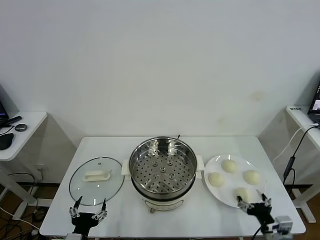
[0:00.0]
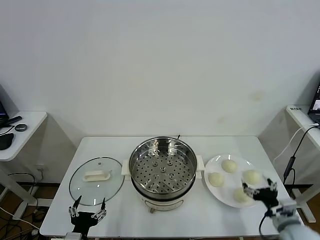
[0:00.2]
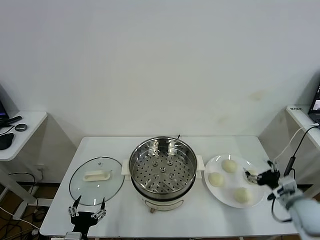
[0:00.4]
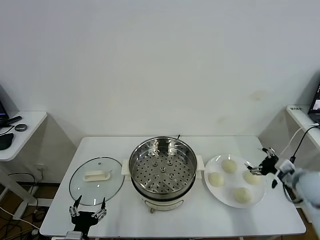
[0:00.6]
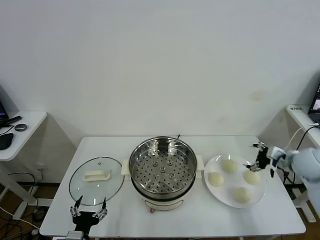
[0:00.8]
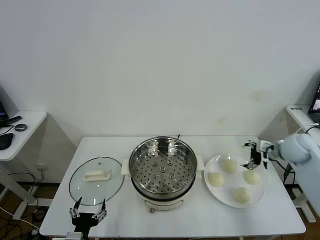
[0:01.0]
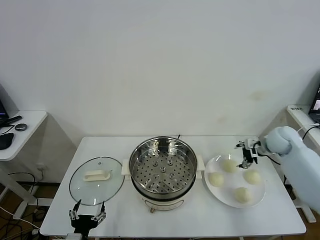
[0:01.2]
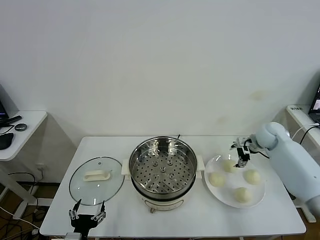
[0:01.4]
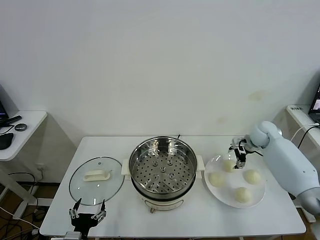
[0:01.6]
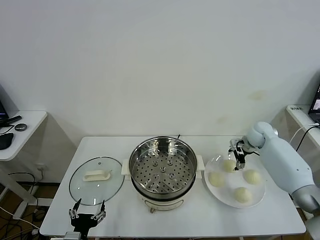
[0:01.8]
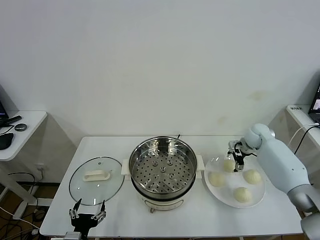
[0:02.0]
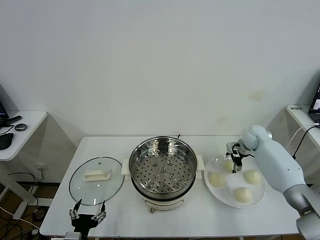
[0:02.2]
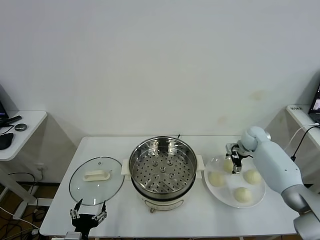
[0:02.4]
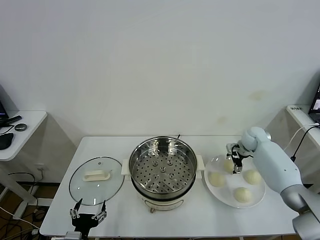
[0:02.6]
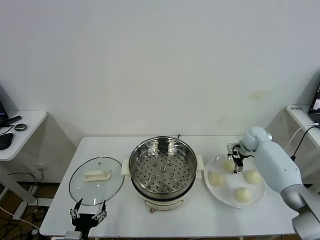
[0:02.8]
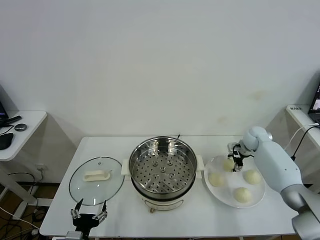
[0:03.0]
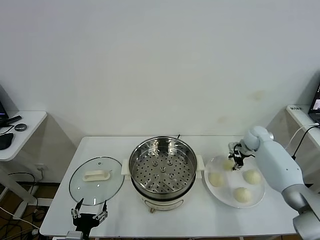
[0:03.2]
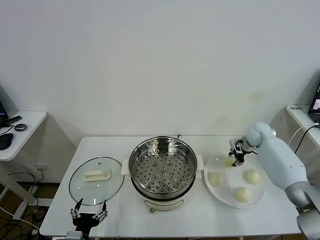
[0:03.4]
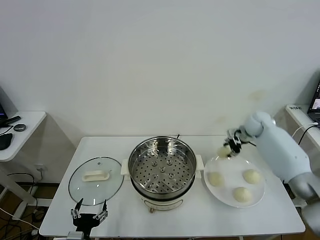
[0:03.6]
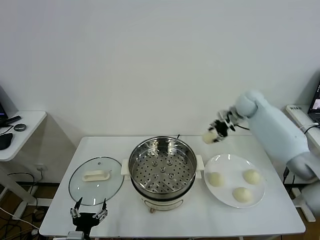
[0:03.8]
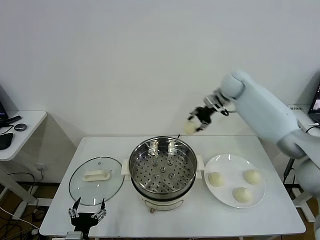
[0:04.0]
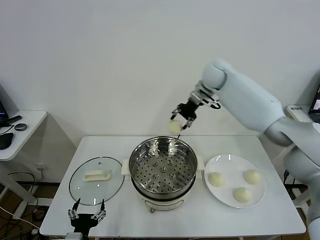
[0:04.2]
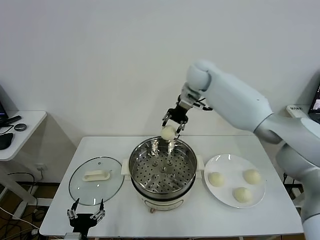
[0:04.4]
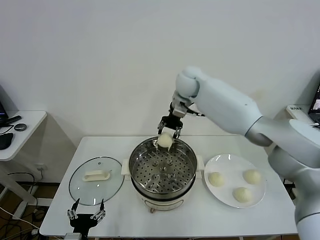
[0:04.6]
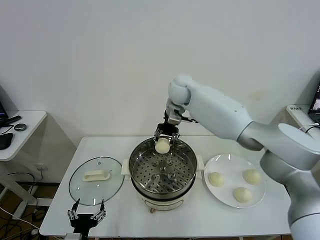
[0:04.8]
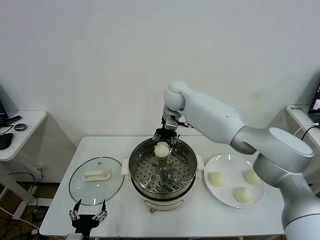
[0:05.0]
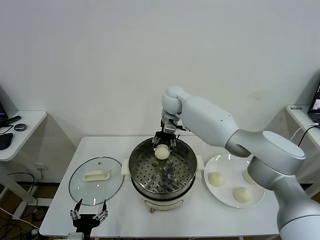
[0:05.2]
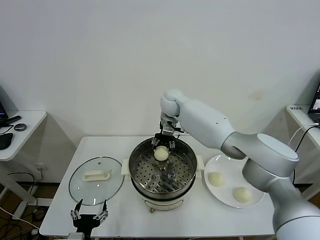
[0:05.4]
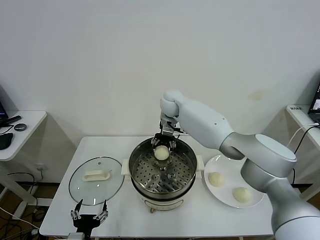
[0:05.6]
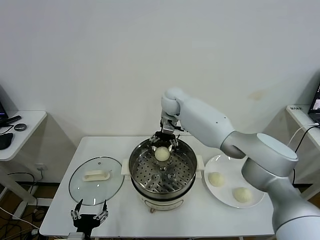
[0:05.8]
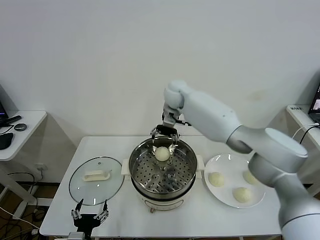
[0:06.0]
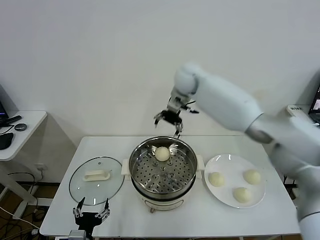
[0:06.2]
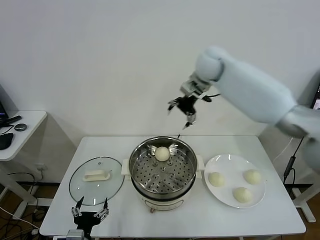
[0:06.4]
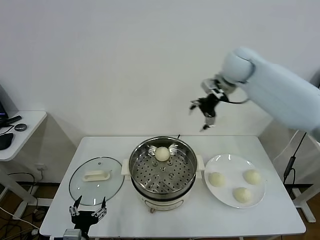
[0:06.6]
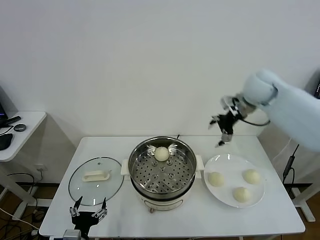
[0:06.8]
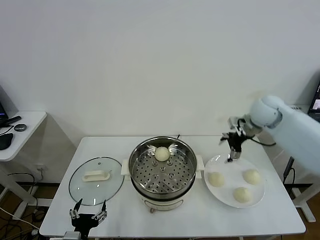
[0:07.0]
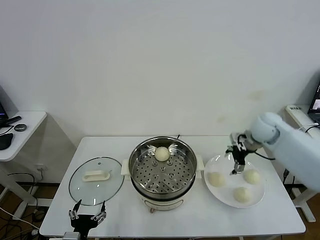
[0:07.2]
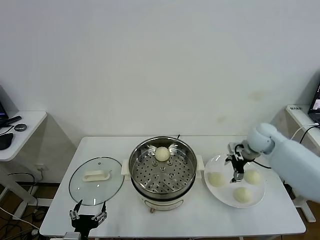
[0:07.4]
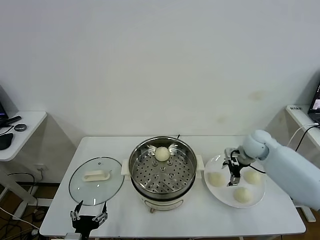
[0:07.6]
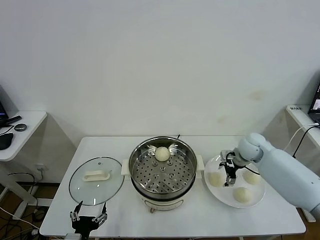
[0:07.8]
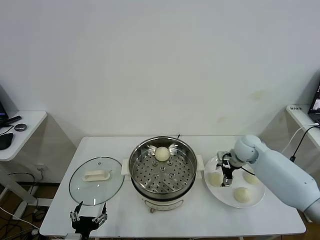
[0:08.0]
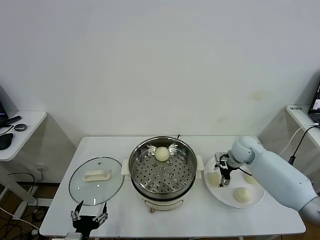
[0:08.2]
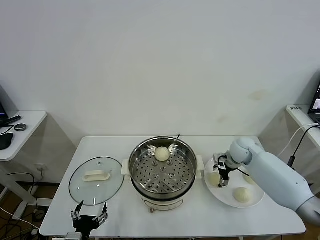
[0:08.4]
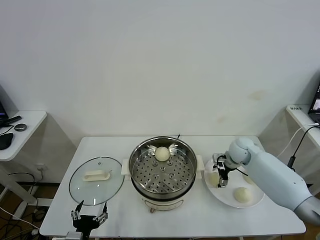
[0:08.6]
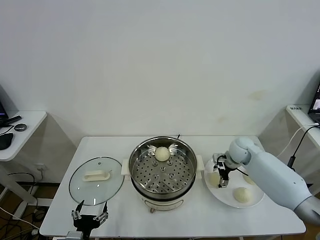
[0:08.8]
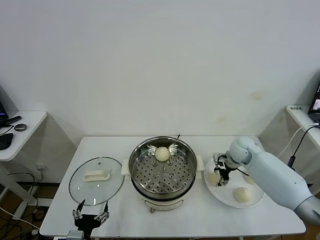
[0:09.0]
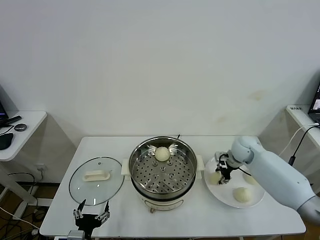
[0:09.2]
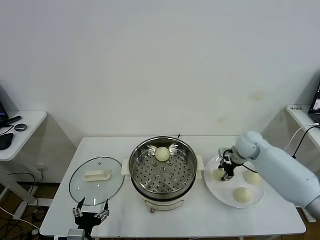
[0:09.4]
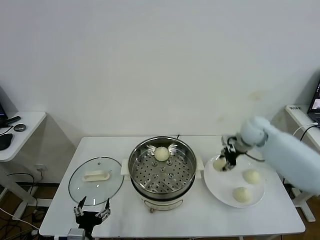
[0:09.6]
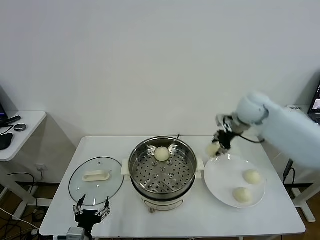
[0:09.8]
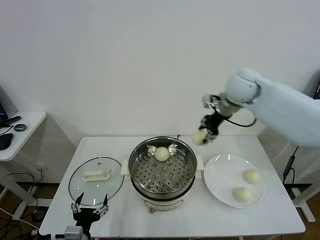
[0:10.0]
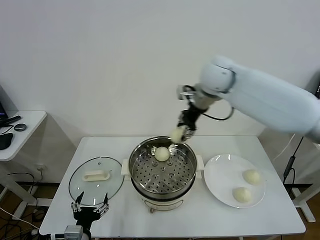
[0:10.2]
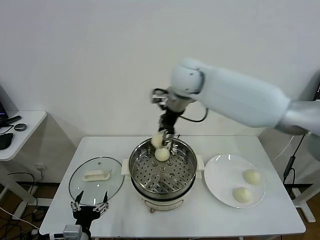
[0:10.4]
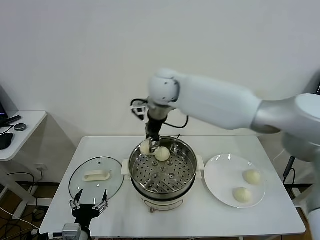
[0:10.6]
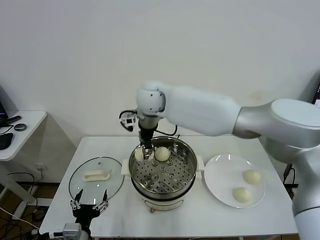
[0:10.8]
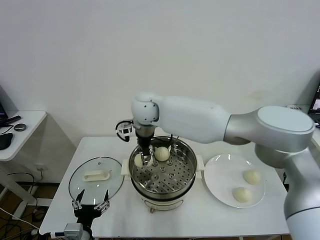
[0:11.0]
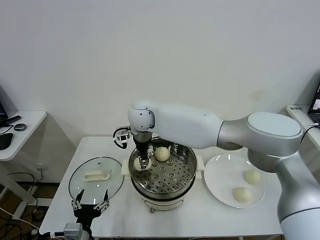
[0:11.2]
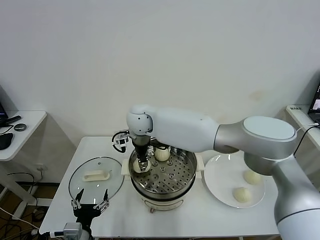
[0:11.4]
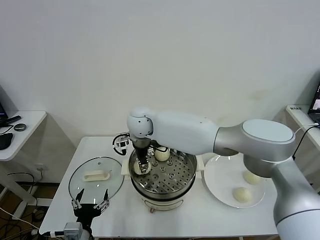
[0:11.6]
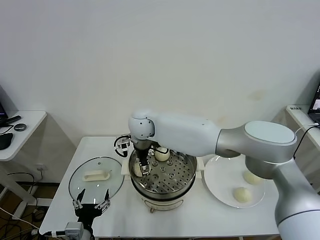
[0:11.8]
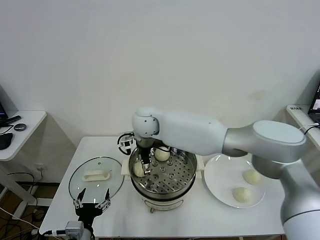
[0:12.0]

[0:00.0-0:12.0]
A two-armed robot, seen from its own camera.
Task of the whole recording: take steamed baozi put them in steamer.
Step, 0:00.0 to 0:03.0: Grasp the baozi in the plate with right gripper.
Step, 0:03.2 to 0:05.8: Place the baozi on the steamer with right gripper.
Step, 0:06.0 to 0:09.0: Grasp the baozi in the plate with right gripper.
Step, 0:09.2 to 0:11.8: Place the baozi on the steamer with right gripper.
0:01.6 to 0:03.0: The right gripper changes place by approximately 5 cm, and closes its fingers.
0:03.0 to 0:04.4: The right gripper heads to the left and upward, covering roughly 35 cm, and closes up.
0:04.4 to 0:06.0: The right gripper is displaced to the left and downward by about 10 cm, and opens.
0:06.0 to 0:07.6: The right gripper heads to the right, downward and backward, covering approximately 35 cm.
0:07.6 to 0:09.0: The right gripper is displaced downward by about 5 cm, and closes up.
0:09.0 to 0:10.4: The right gripper is displaced upward and to the left by approximately 35 cm, and closes.
0:10.4 to 0:12.0: The right gripper travels downward and to the left by about 20 cm, and opens.

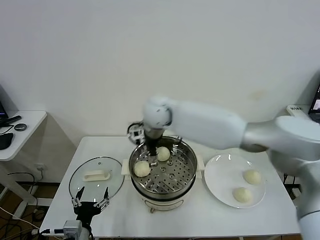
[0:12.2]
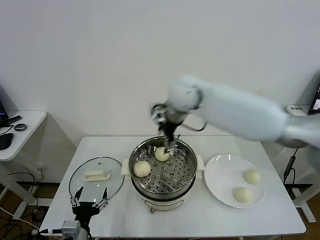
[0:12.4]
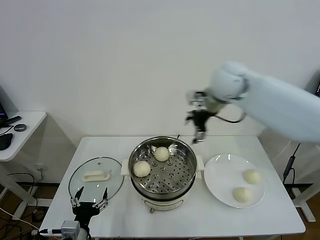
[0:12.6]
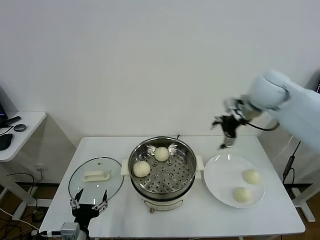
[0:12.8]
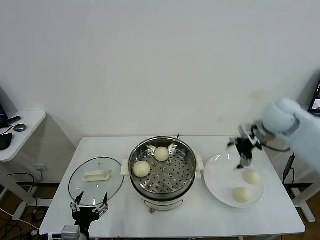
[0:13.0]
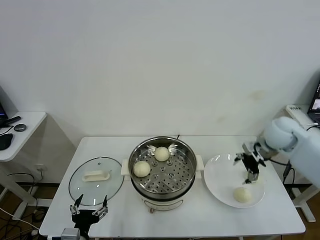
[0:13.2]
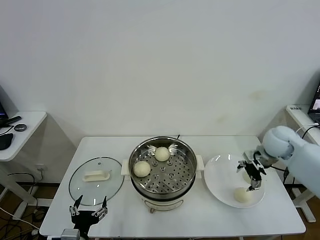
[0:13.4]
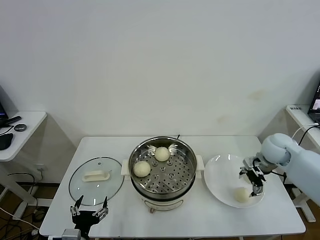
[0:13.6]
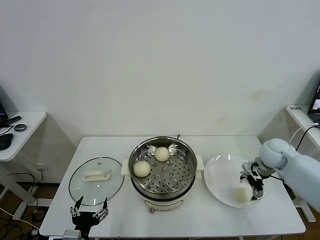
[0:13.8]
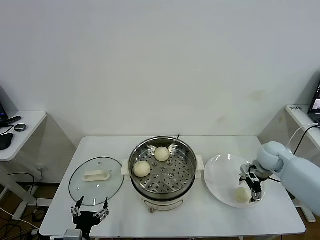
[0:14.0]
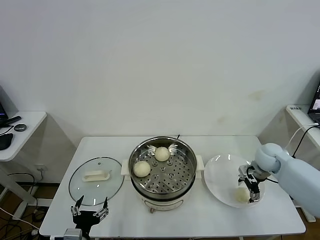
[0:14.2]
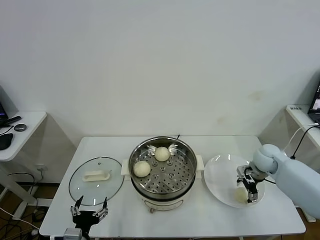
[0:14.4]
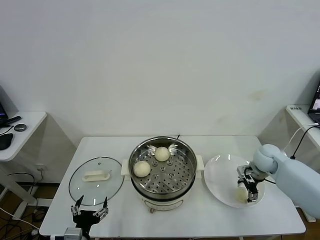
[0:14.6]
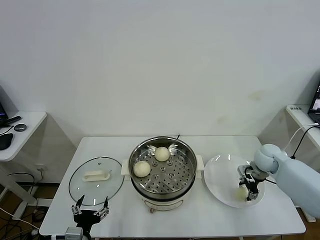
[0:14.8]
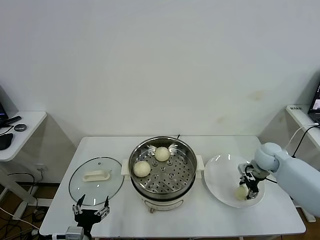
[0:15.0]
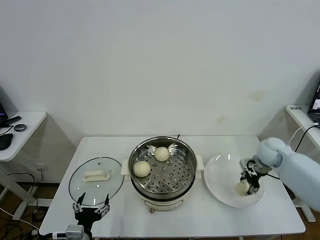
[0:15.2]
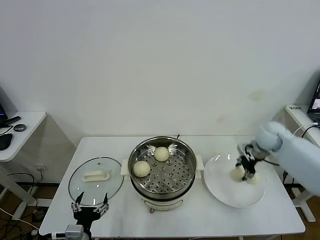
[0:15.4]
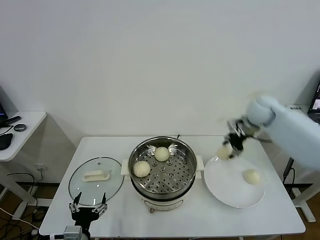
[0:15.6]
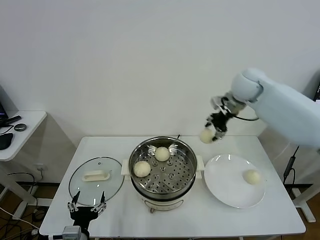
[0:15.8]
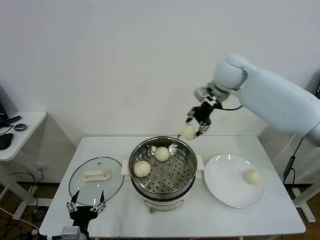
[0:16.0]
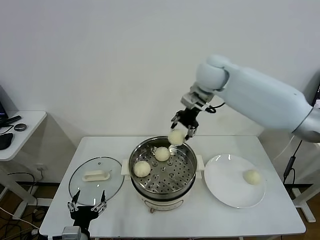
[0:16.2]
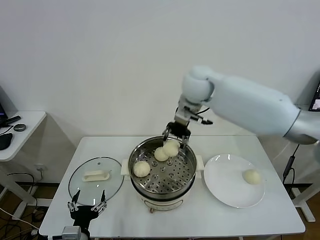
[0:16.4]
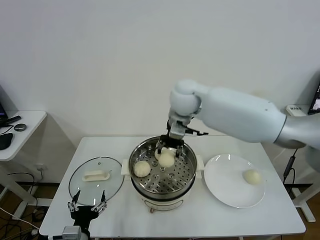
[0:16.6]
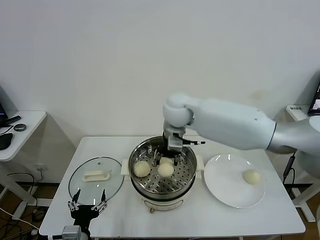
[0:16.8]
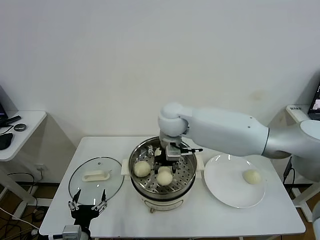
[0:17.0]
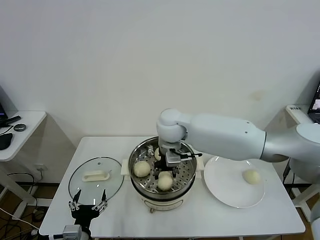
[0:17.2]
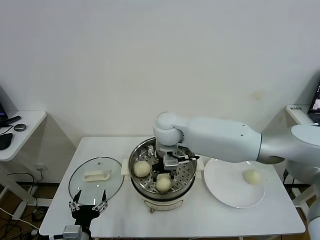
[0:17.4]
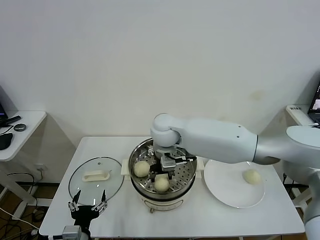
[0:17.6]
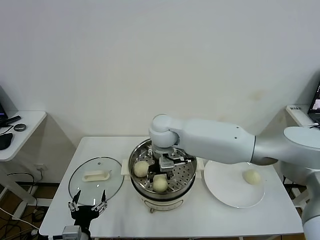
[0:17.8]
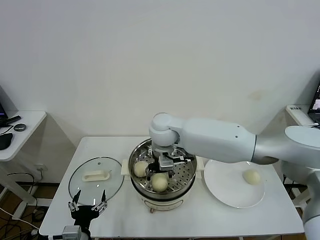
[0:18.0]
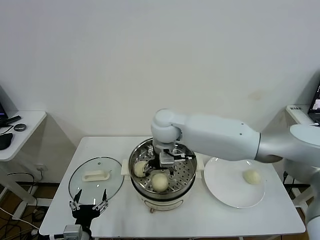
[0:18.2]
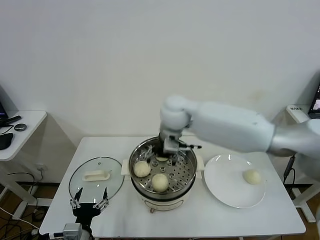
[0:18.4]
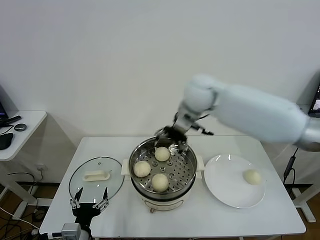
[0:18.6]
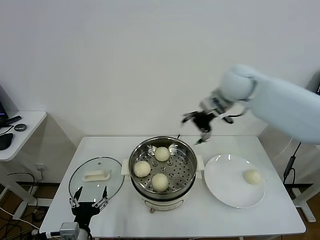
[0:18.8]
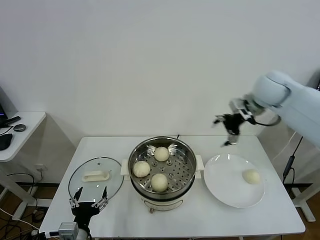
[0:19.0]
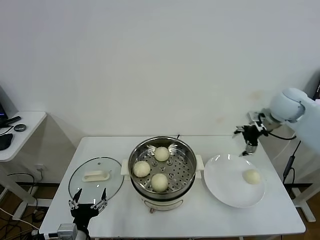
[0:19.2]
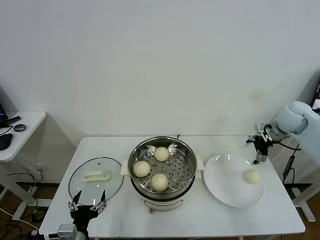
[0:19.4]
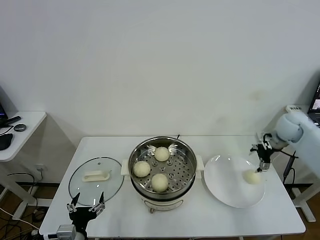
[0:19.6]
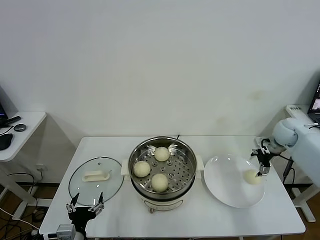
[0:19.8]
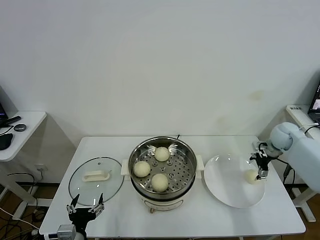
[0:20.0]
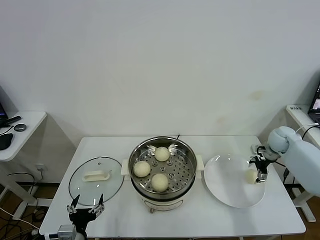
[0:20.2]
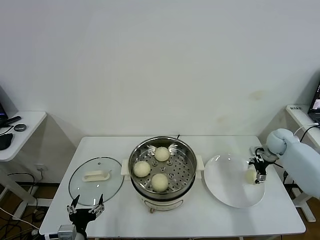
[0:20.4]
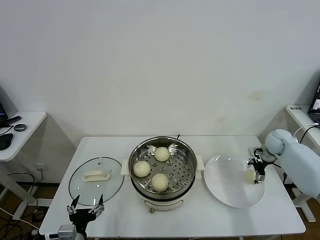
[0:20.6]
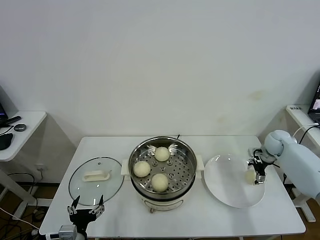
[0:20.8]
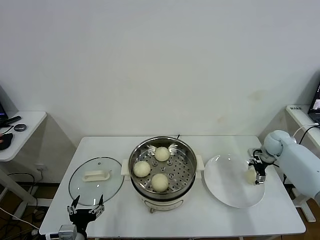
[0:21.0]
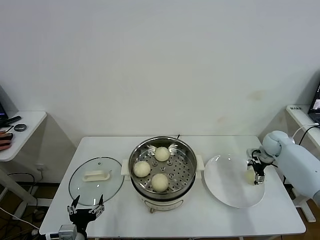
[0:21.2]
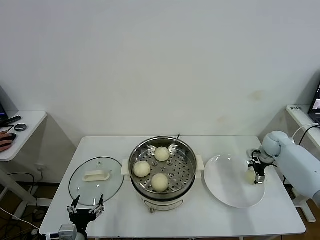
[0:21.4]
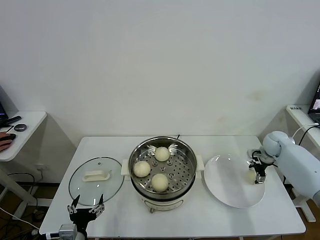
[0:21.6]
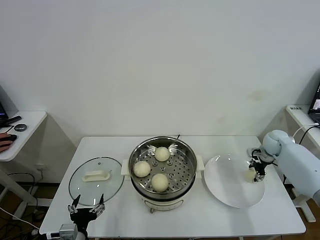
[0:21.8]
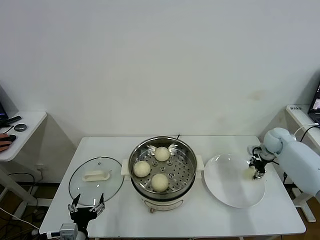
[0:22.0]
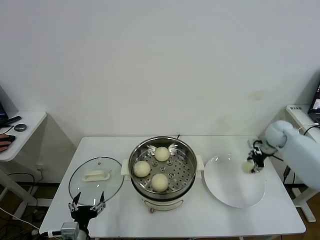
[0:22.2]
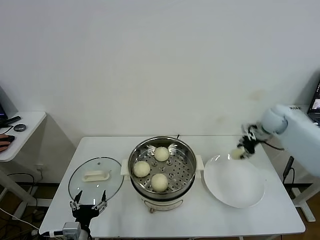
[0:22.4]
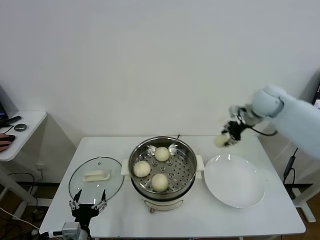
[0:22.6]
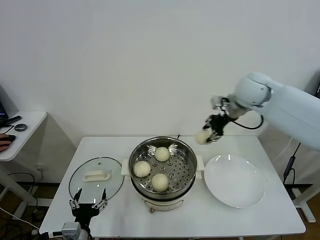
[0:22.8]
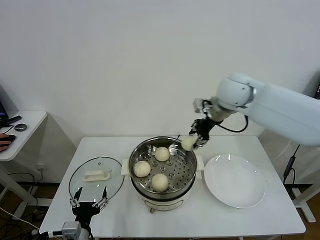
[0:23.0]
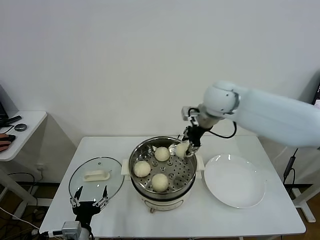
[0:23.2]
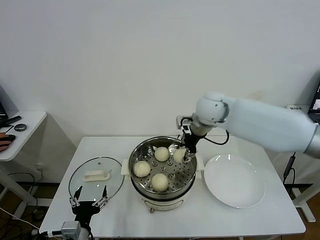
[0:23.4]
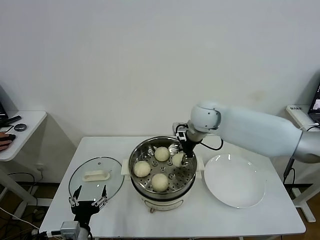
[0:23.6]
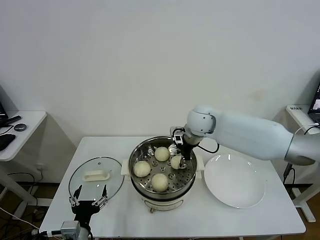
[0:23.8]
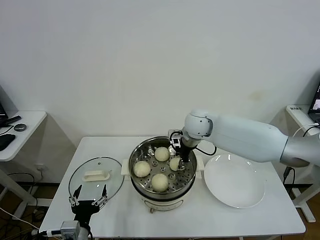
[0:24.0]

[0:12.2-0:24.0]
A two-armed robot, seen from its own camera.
Task of the whole recording: take steamed baozi put them in steamer.
Step, 0:12.2 to 0:14.8: Grasp the baozi in the plate with right gripper.
Step, 0:15.0 to 0:18.2: Place the baozi on the steamer with right gripper.
Step, 0:18.6 to 0:21.6: Grasp the baozi in the plate with right gripper.
0:12.2 to 0:13.6: The right gripper goes about 40 cm to the right.
0:13.6 to 0:15.2: The right gripper closes.
0:15.2 to 0:16.6: The right gripper goes approximately 40 cm to the left and upward.
0:16.6 to 0:18.2: The right gripper goes approximately 10 cm downward and to the left, and opens up.
0:18.2 to 0:19.6: The right gripper heads to the right, covering approximately 40 cm.
0:19.6 to 0:21.0: The right gripper goes some 10 cm downward.
0:21.0 to 0:22.6: The right gripper heads upward and to the left, covering roughly 20 cm, and closes.
0:22.6 to 0:24.0: The right gripper moves to the left, roughly 20 cm.
